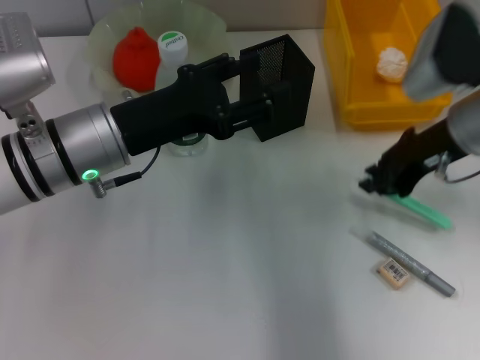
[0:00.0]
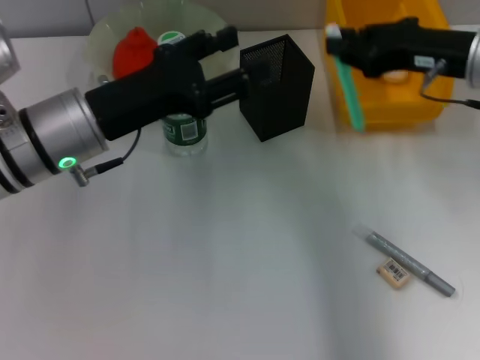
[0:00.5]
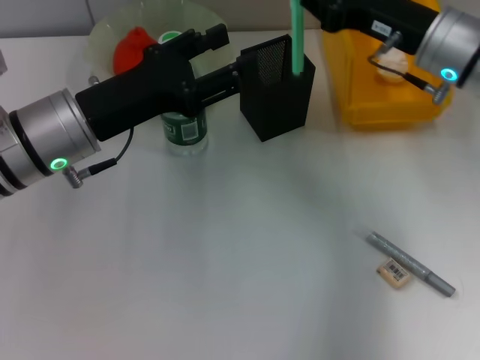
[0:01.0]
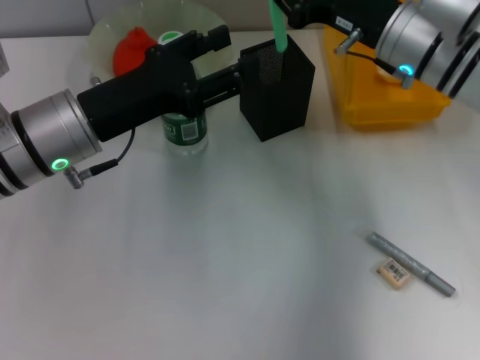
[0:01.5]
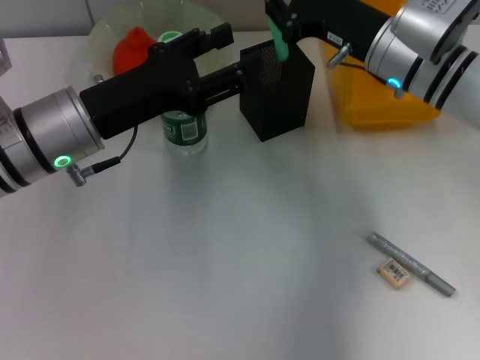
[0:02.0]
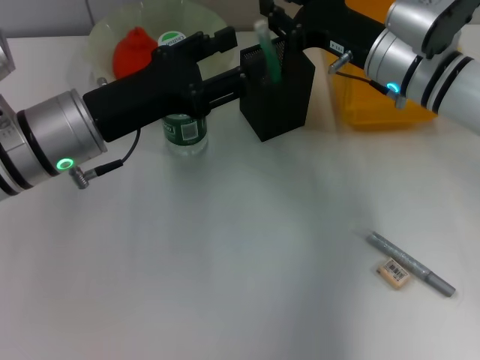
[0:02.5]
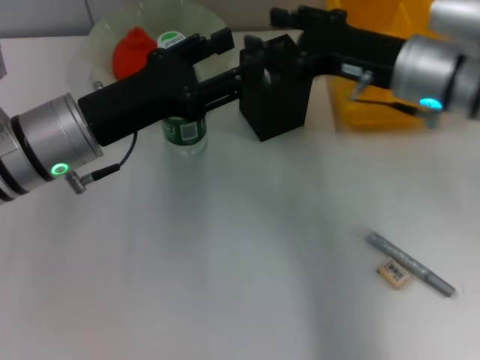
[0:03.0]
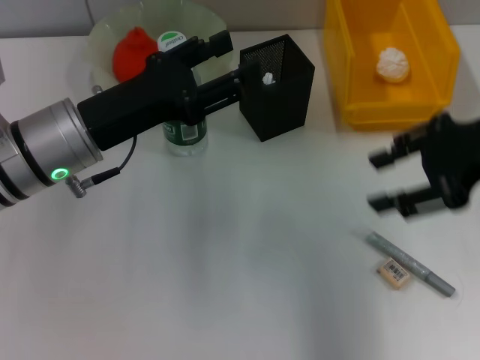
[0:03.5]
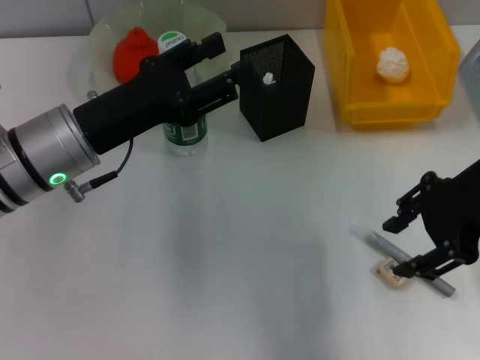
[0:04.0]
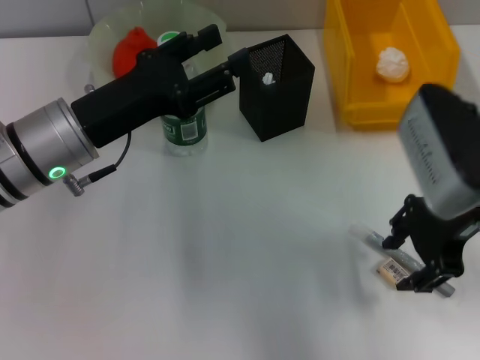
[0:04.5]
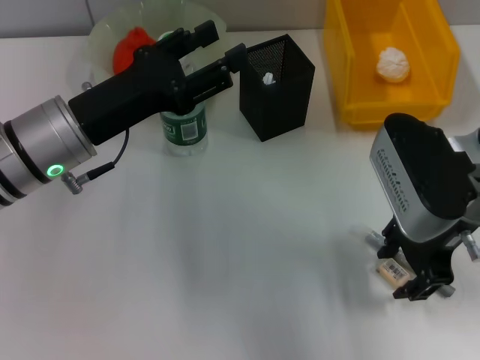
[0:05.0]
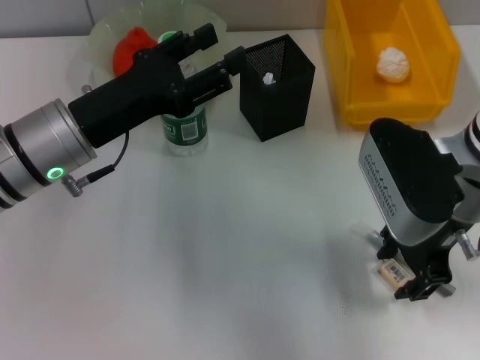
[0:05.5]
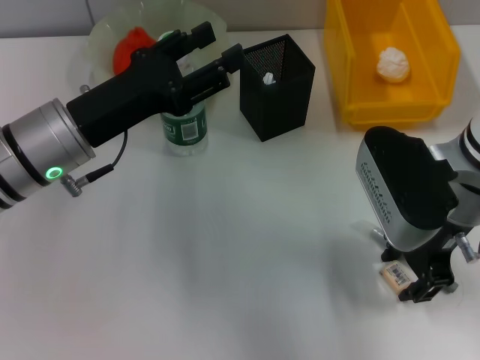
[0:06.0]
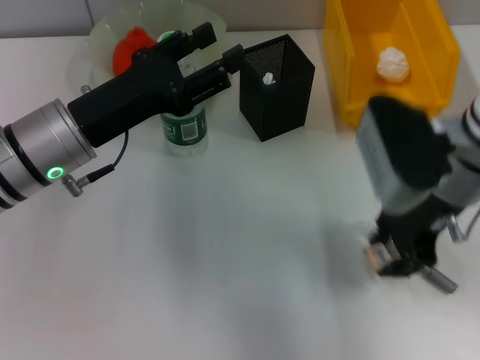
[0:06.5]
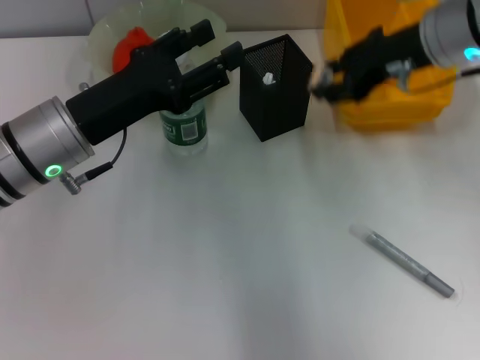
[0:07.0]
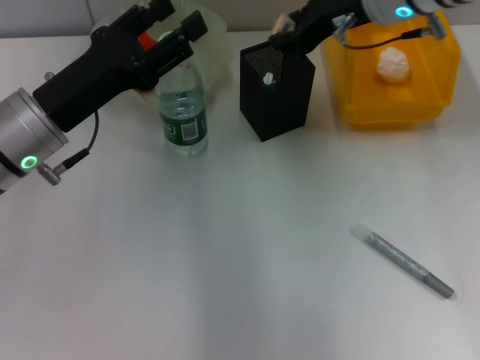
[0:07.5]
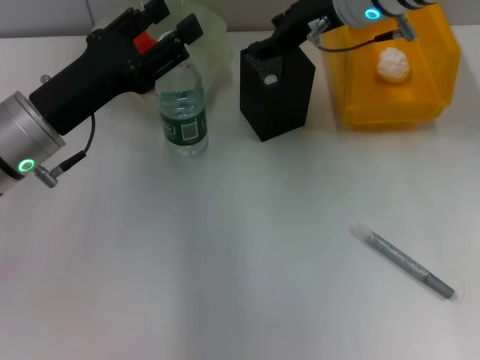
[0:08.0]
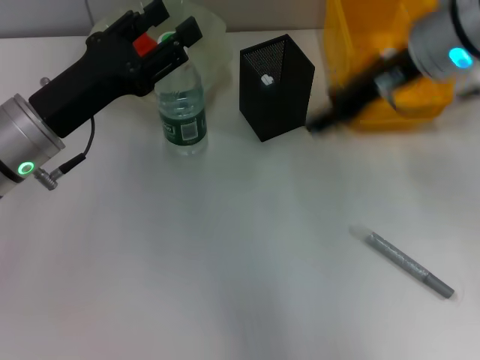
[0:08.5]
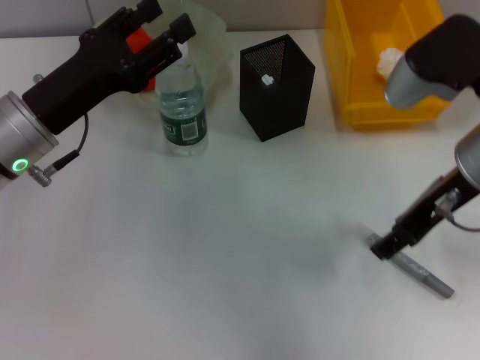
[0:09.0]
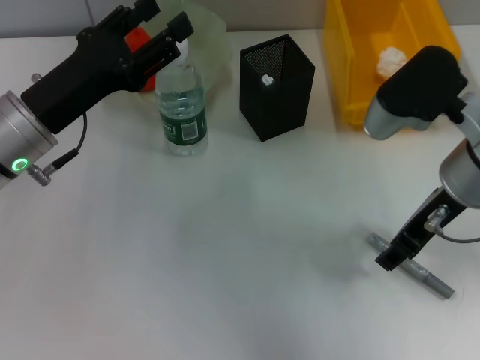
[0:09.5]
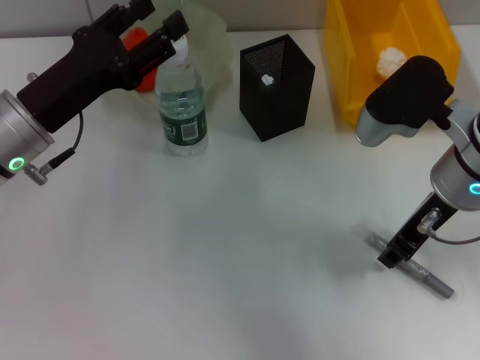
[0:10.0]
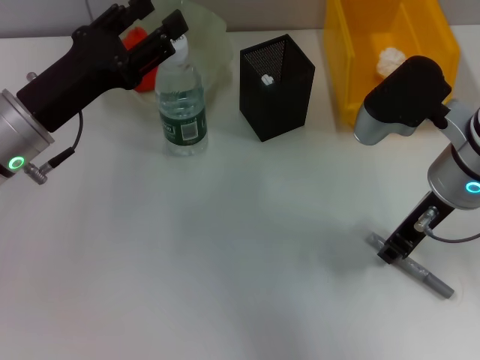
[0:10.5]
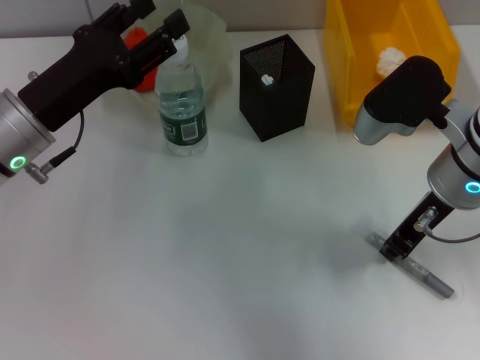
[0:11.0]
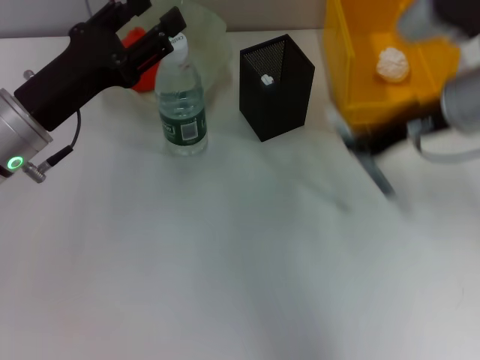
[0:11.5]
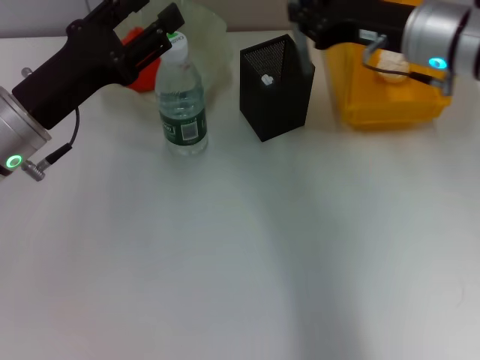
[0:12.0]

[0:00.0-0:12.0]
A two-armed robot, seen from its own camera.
Step, 0:00.0 to 0:02.5: Place the blue utility knife into the pen holder with the right hand.
Step, 0:03.0 to 0:06.0: Grab the eraser with the right hand.
Step, 0:06.5 to 0:08.0: Put the eraser into the pen holder with the right hand.
Step, 0:08.5 to 0:10.5: Grab the gray glue with the right hand.
0:00.0 to 0:02.0: The right gripper travels to the left by some 5 cm.
0:02.0 to 0:04.0: The right gripper moves backward, upward and to the right, some 15 cm, and opens its fingers.
0:04.0 to 0:06.0: The right gripper shifts approximately 10 cm downward and to the left.
0:06.0 to 0:08.0: The right gripper travels forward and upward by approximately 15 cm.
0:08.0 to 0:10.0: The right gripper shifts roughly 15 cm backward, to the right and downward.
0:10.0 to 0:12.0: The right gripper shifts about 10 cm forward, and closes up.

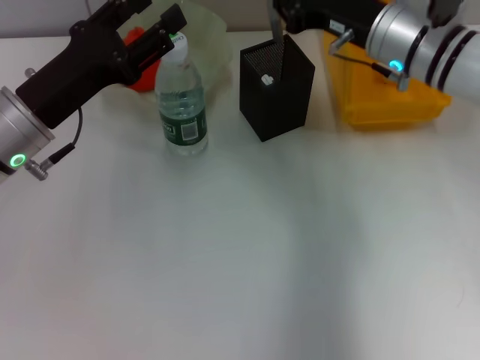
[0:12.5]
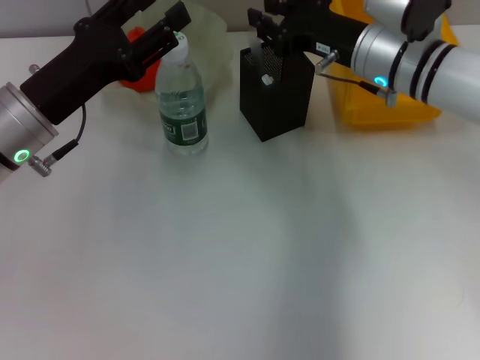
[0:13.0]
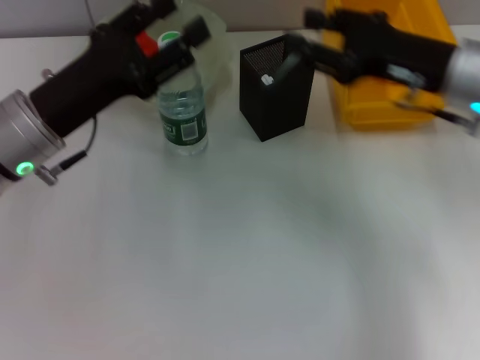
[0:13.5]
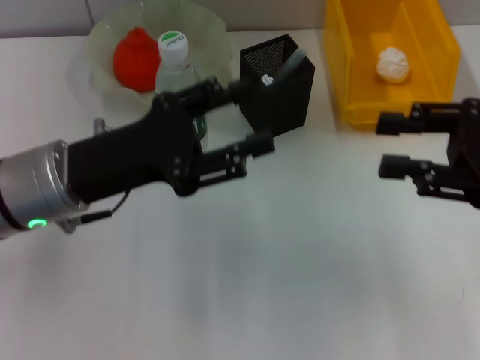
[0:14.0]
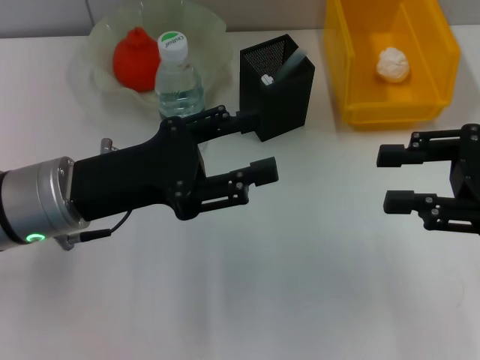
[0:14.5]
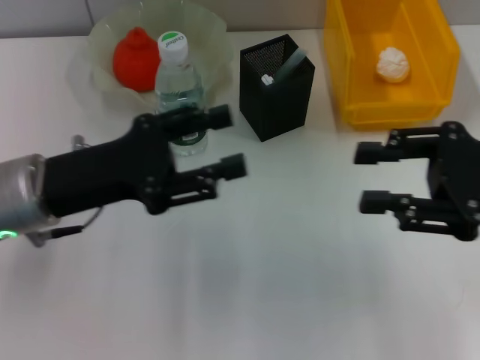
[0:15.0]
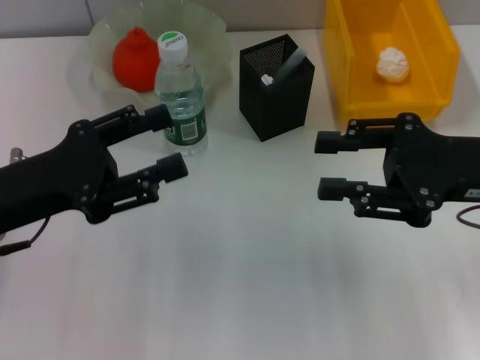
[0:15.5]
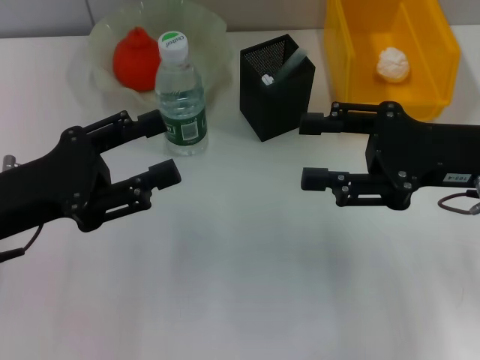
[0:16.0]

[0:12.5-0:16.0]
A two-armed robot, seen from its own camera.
0:12.5 to 0:14.5: The right gripper goes some 20 cm backward and to the right, and opens up. Meanwhile the left gripper changes place by some 5 cm.
0:14.5 to 0:16.0: Both grippers travel together to the left, about 5 cm.
